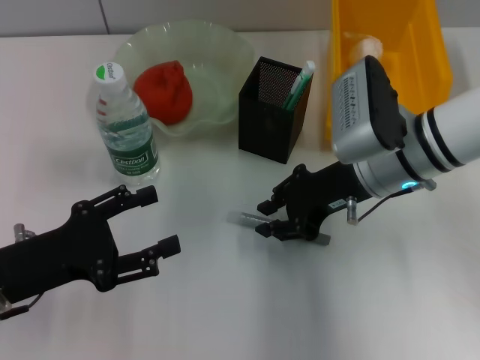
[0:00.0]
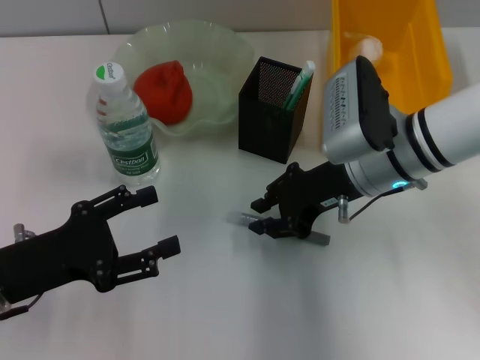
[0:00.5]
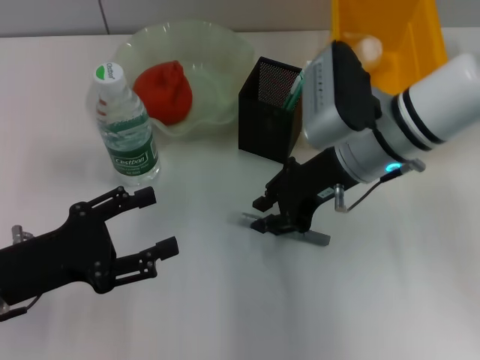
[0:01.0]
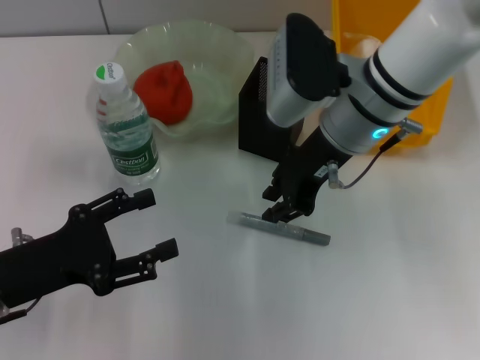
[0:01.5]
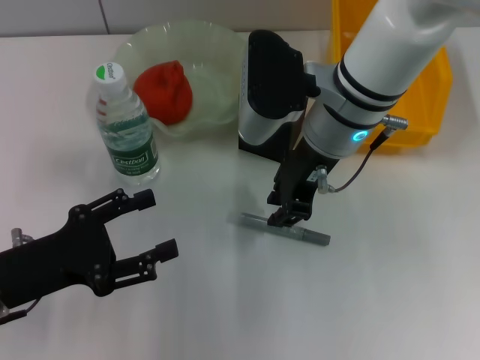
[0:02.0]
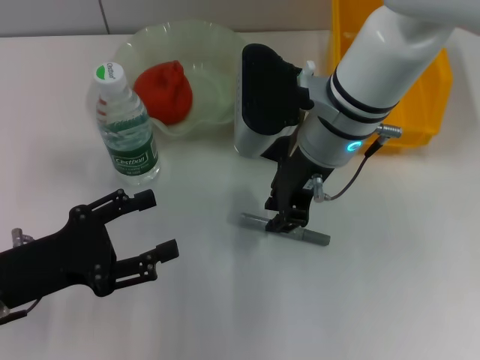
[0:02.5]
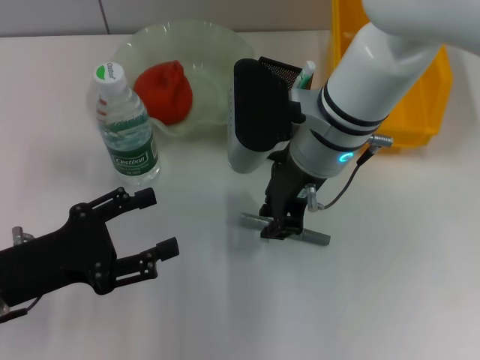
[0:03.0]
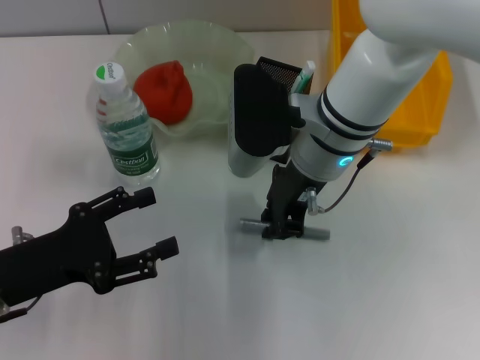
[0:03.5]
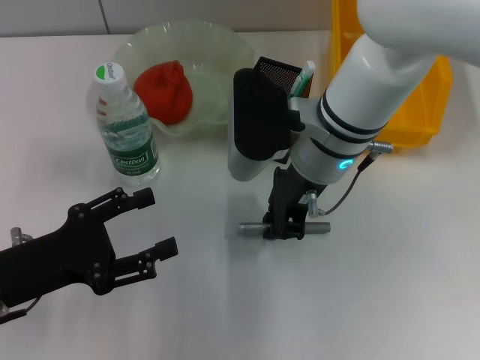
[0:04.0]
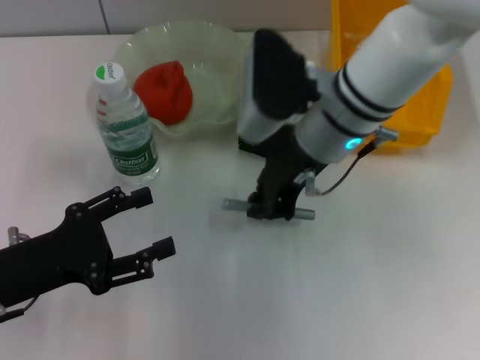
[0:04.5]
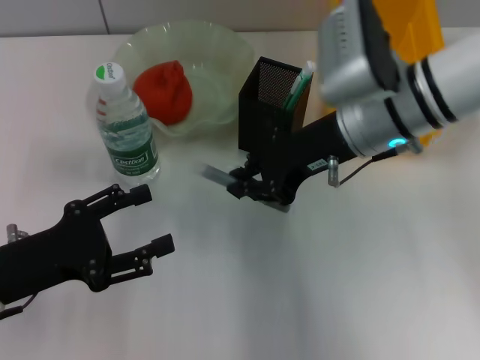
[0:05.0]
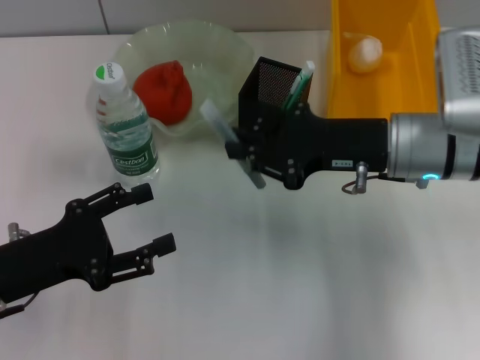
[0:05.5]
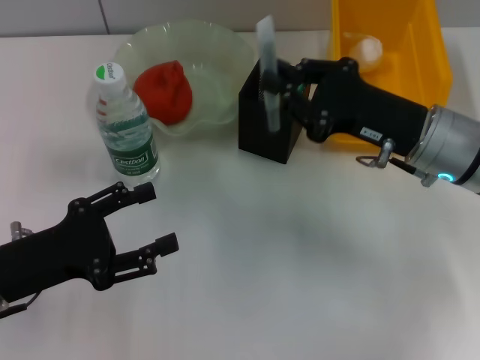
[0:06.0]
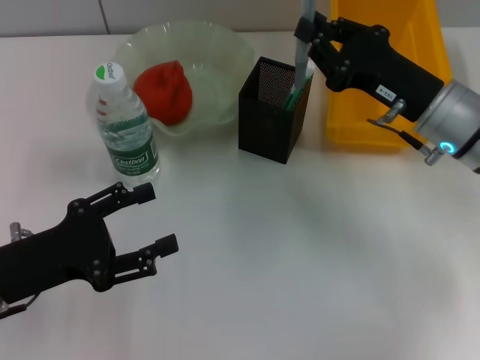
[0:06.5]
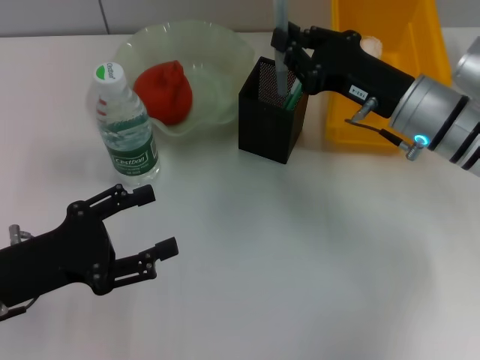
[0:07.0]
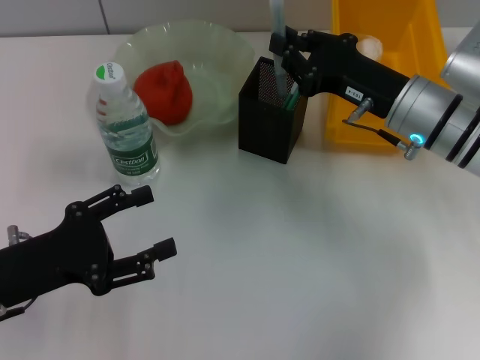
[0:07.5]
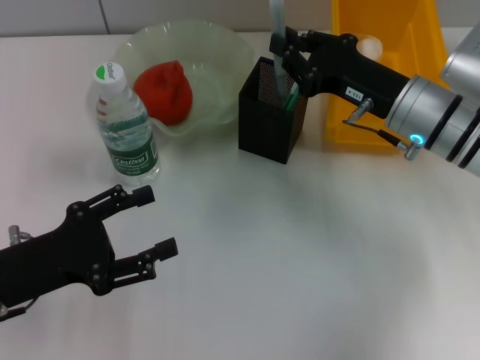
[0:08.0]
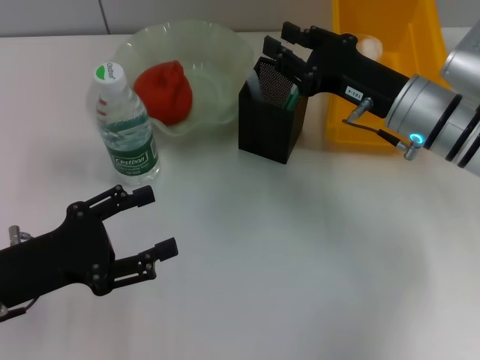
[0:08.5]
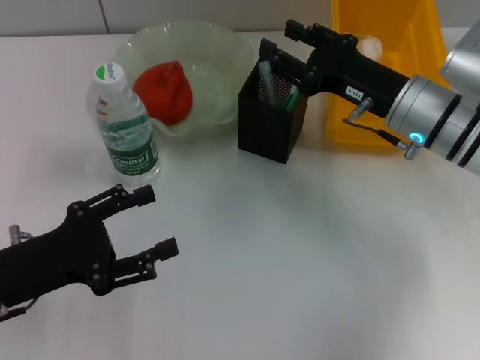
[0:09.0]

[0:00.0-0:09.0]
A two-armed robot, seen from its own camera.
Step, 0:00.0 to 0:03.5: Grab the gray glue with the right hand.
Step, 0:04.5 to 0:08.5: Place the gray glue into the pen holder with the right hand.
0:00.0 to 0:02.0: The right gripper travels to the left and upward by approximately 10 cm.
0:02.0 to 0:04.5: The grippers stay close to where they were, moving slightly.
0:04.5 to 0:07.0: The right gripper moves to the right and downward, roughly 10 cm.
0:07.0 to 0:09.0: The right gripper opens up.

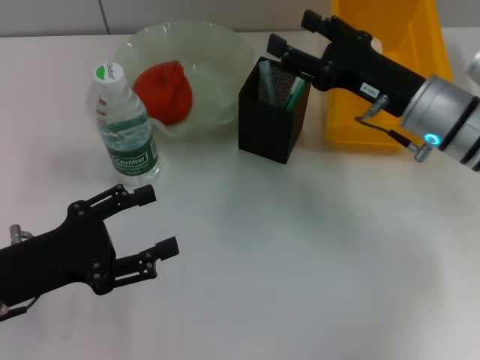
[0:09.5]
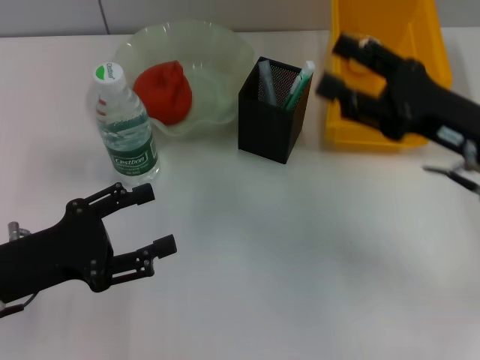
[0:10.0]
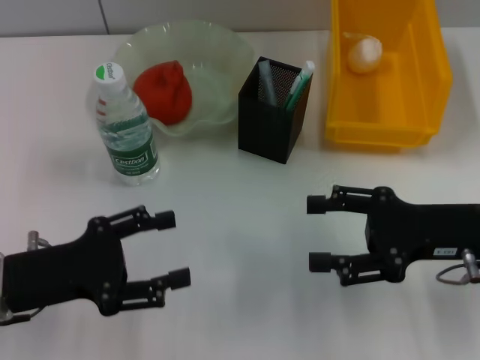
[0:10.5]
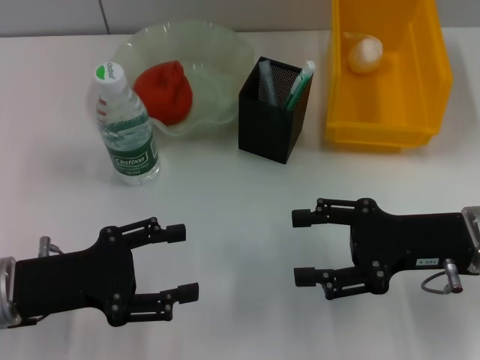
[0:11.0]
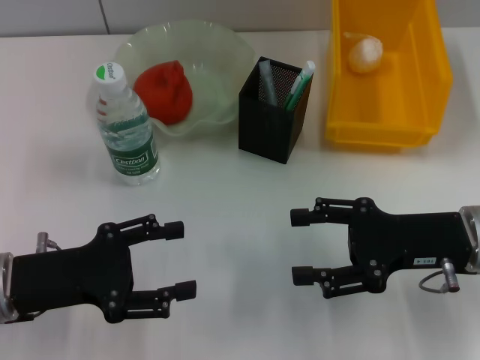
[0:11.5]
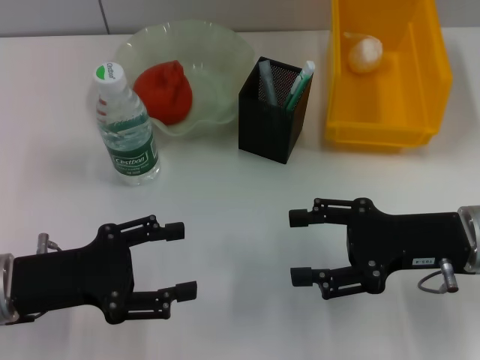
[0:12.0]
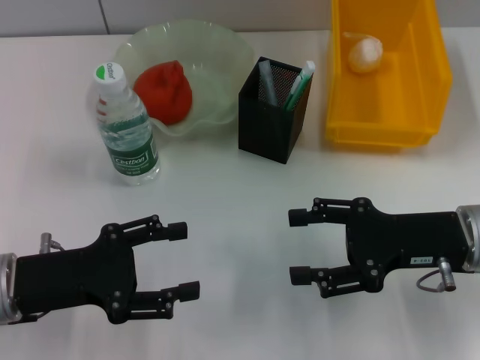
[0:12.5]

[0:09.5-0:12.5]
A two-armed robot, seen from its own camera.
0:09.5 to 0:11.0: The right gripper travels backward by some 10 cm.
0:11.0 to 0:12.5: The two grippers keep their place.
